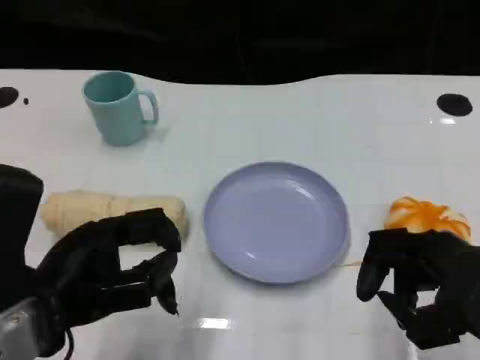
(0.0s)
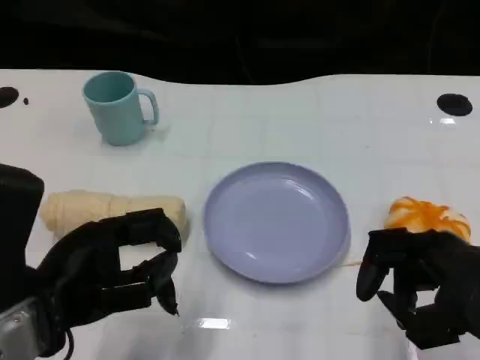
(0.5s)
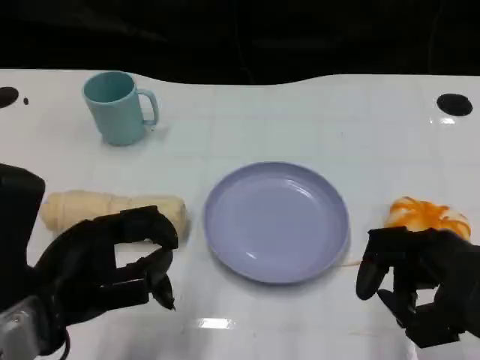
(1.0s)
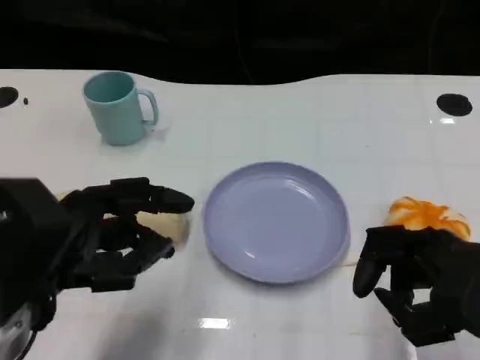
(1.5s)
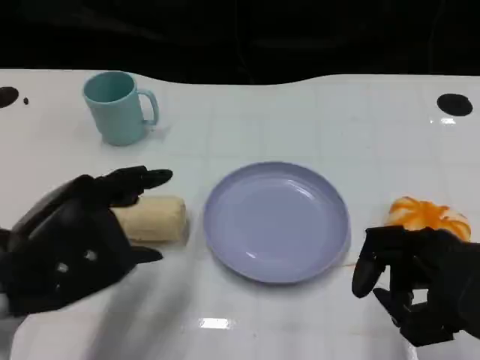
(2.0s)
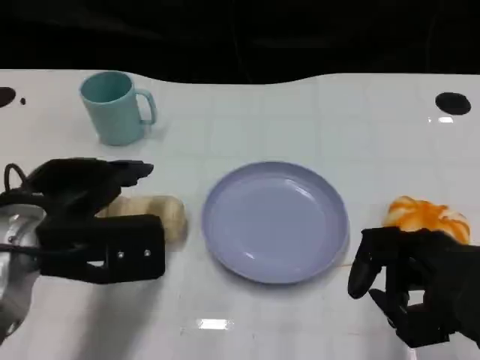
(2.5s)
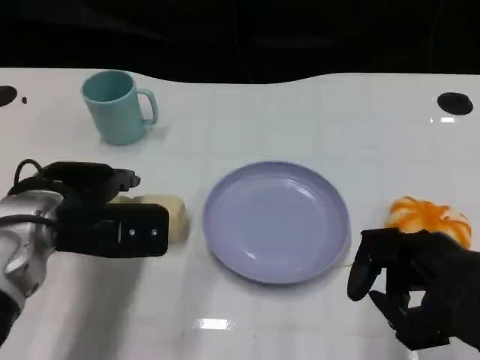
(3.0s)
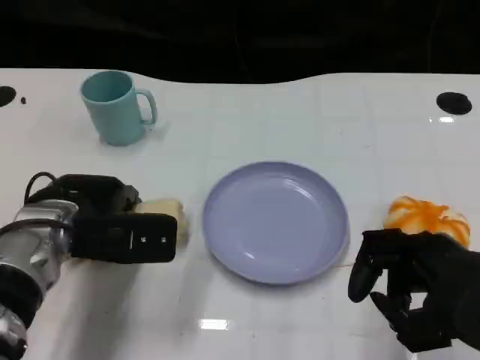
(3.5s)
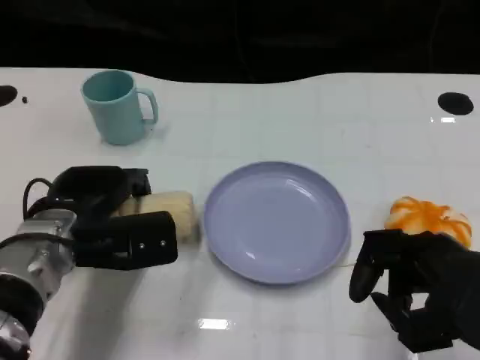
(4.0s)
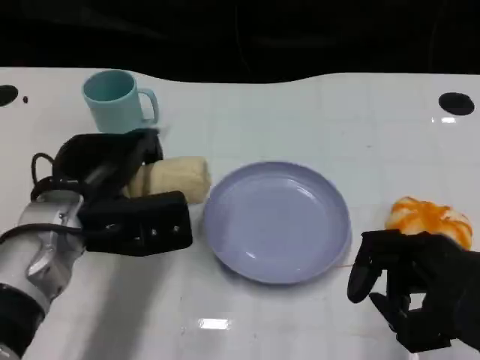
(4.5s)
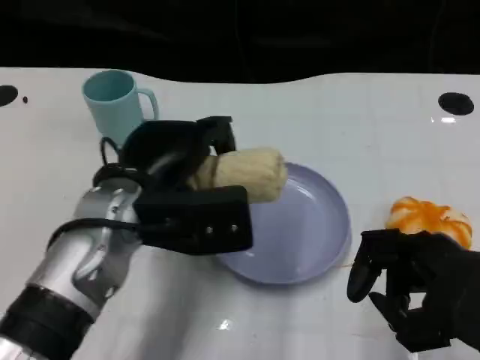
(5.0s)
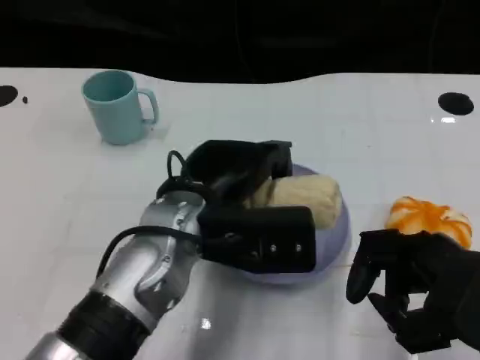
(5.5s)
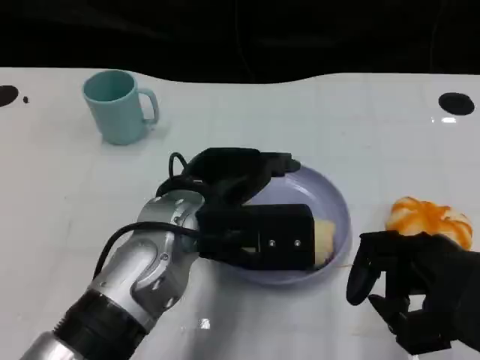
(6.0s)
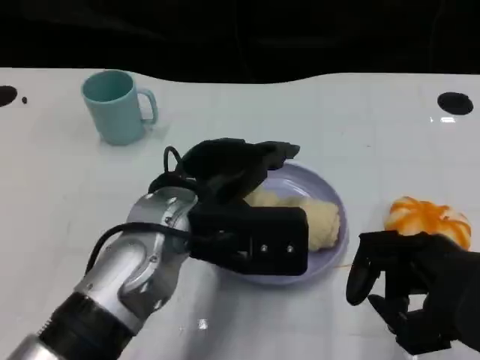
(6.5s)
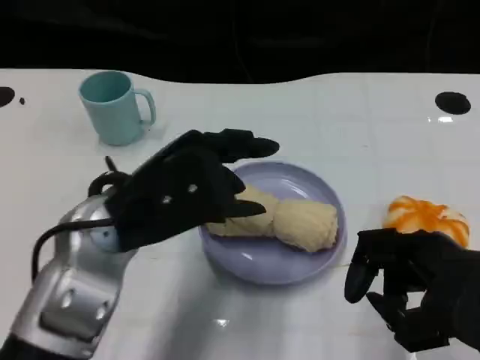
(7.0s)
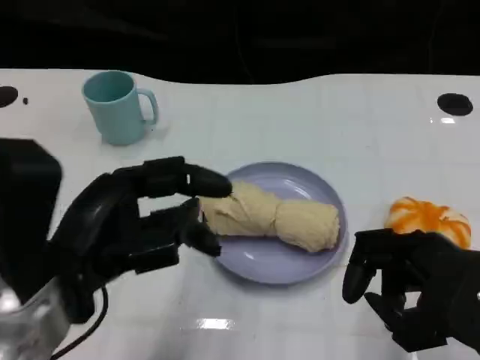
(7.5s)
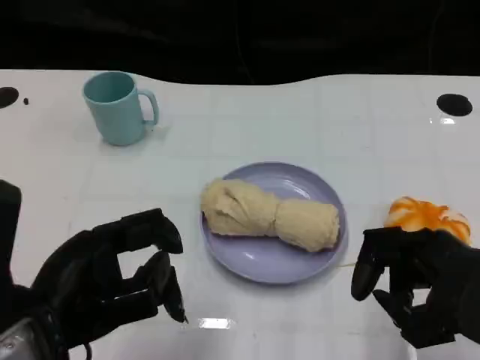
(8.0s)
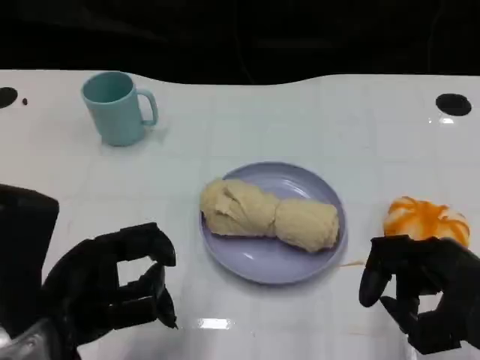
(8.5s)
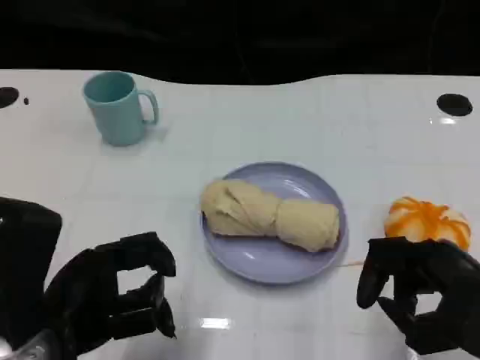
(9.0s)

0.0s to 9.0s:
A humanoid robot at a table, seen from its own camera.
Task of the whole recording: Grasp the towel on the left side of the plate with the left hand and place it into the plate.
2.0s to 4.5s: The left hand shifts some 10 cm forward.
4.5s to 7.0s: The left hand is displaced upward by some 5 cm, and reaches roughly 10 cm to the right, then returns.
7.0s to 9.0s: The left hand is displaced backward and to the left by approximately 10 cm.

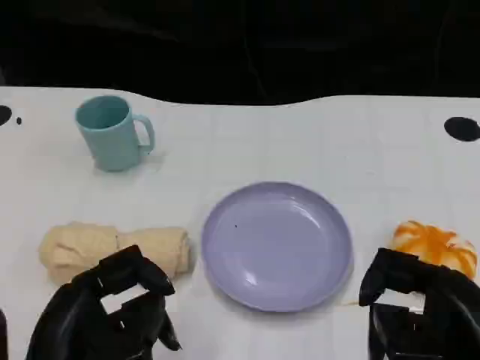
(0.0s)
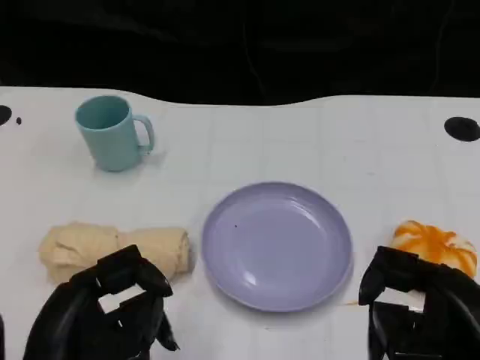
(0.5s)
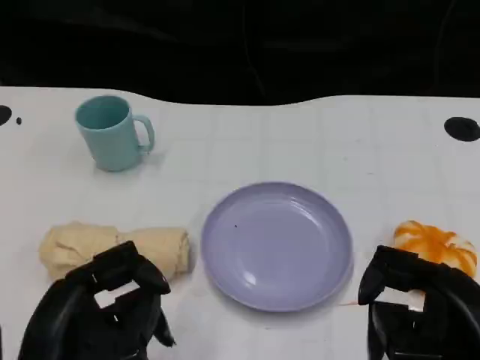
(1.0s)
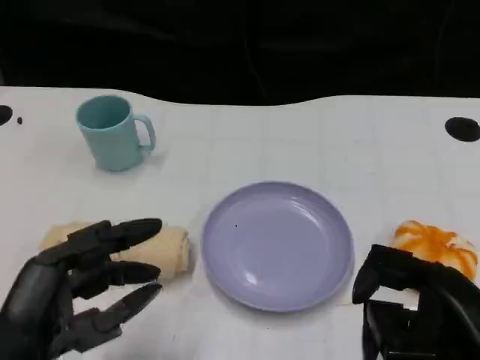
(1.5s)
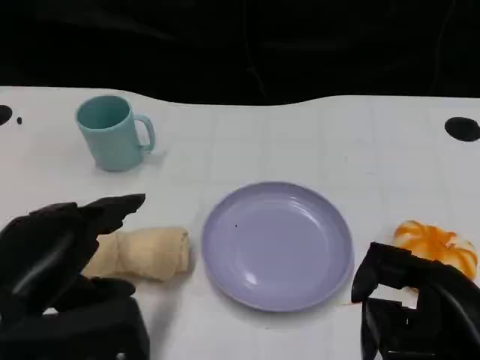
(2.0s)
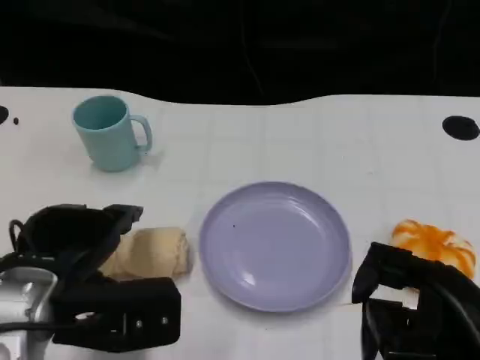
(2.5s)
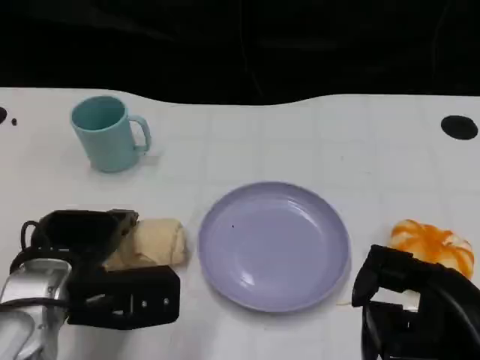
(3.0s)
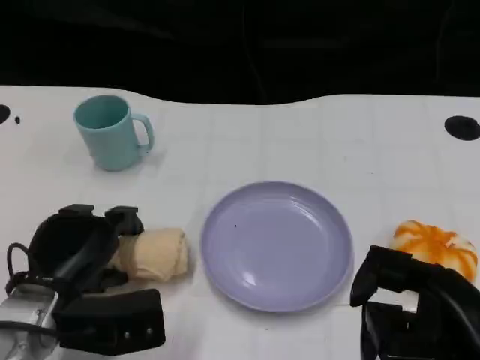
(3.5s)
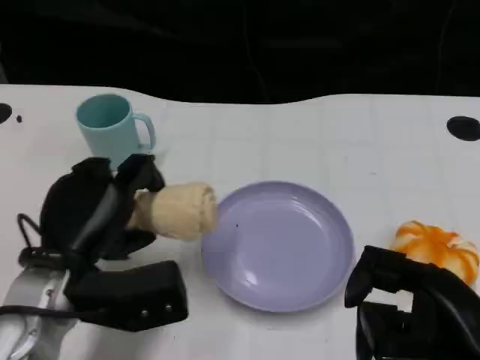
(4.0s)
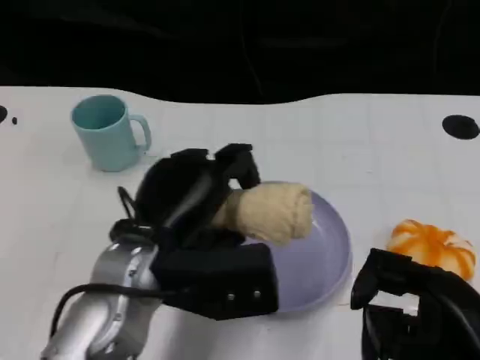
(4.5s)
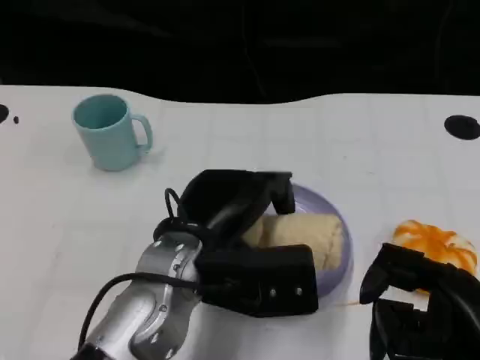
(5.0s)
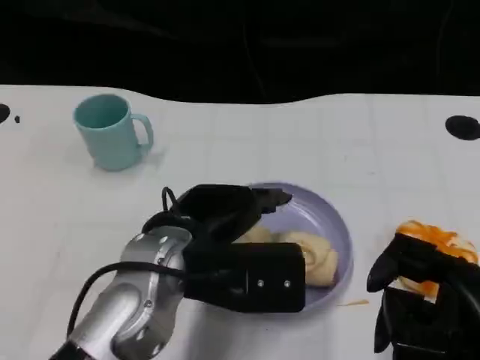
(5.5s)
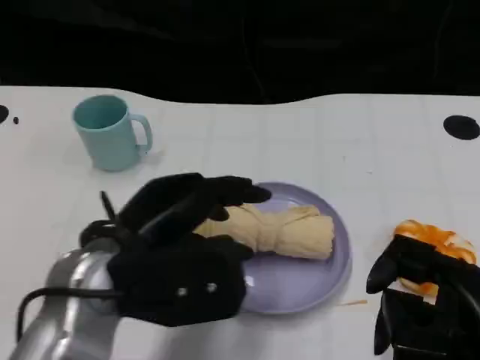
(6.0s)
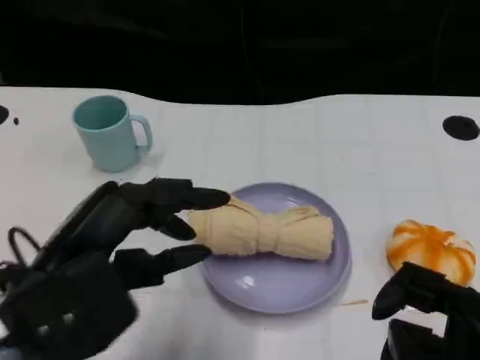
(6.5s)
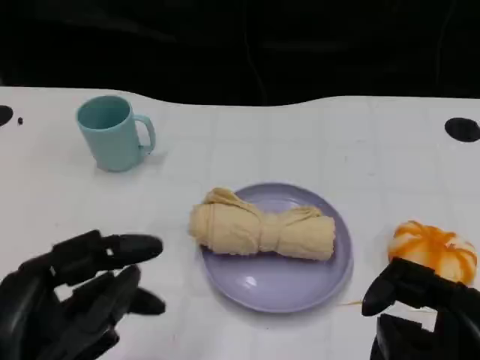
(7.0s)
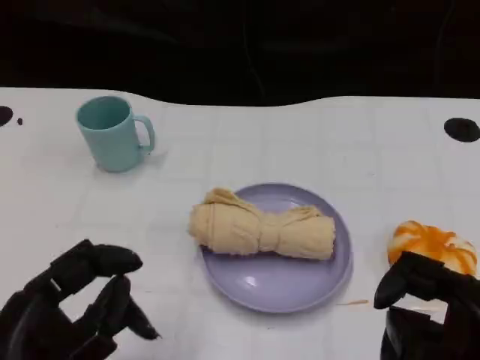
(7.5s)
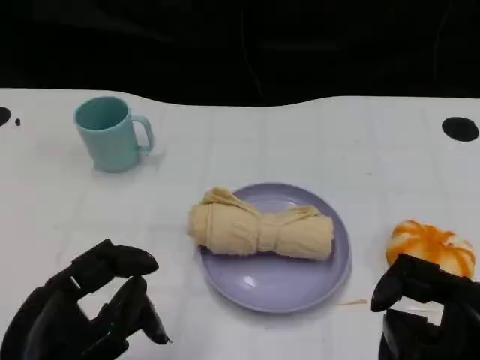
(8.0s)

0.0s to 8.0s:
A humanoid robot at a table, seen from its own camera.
Task of the whole recording: Grasp the towel on the left side of the plate with the left hand and place it into the plate.
0.0s to 2.0s: The left hand shifts by roughly 5 cm.
2.0s to 4.0s: The left hand goes some 10 cm forward and downward.
4.0s to 6.0s: The left hand heads upward, covering approximately 5 cm, and travels to the right and back again, approximately 10 cm each way.
6.0s to 8.0s: The left hand shifts approximately 10 cm backward and to the left.

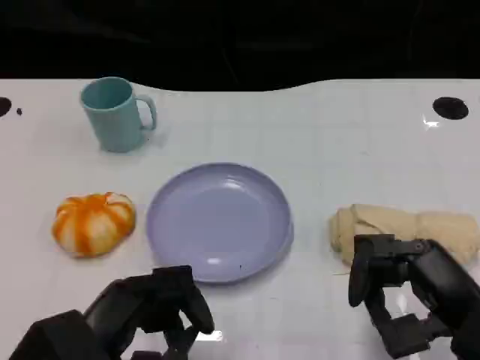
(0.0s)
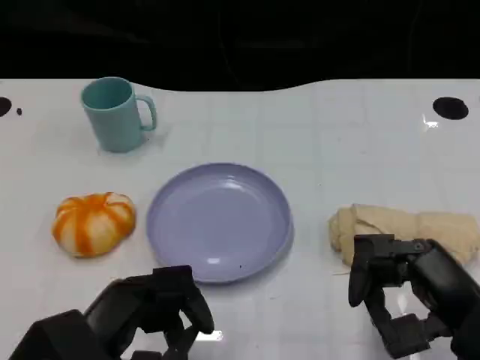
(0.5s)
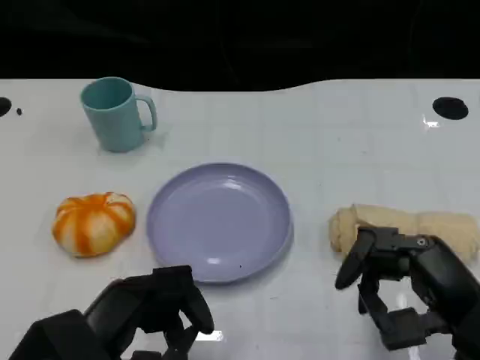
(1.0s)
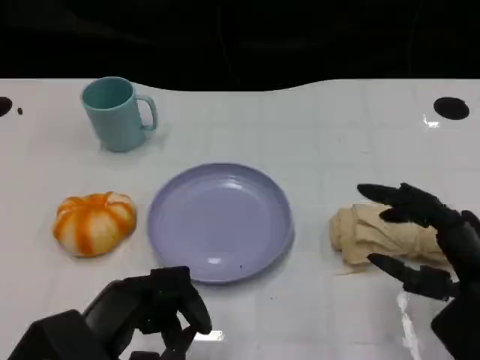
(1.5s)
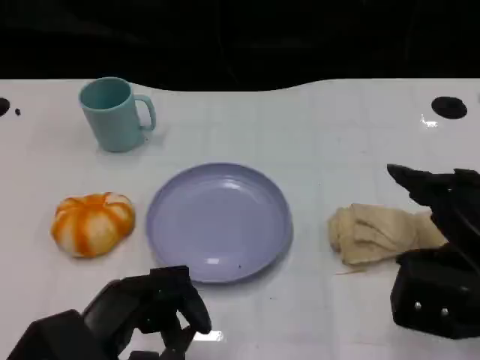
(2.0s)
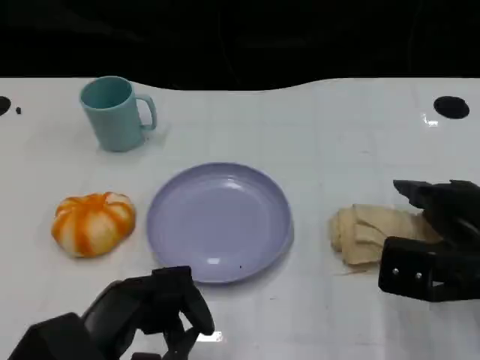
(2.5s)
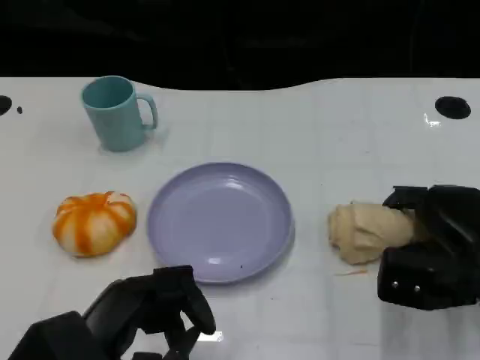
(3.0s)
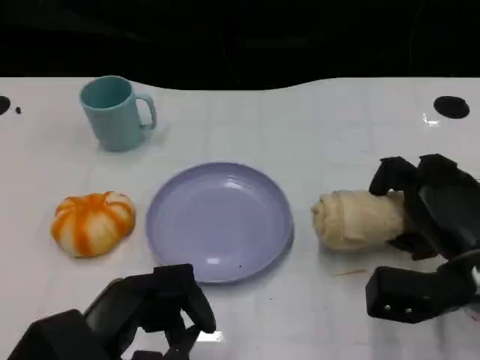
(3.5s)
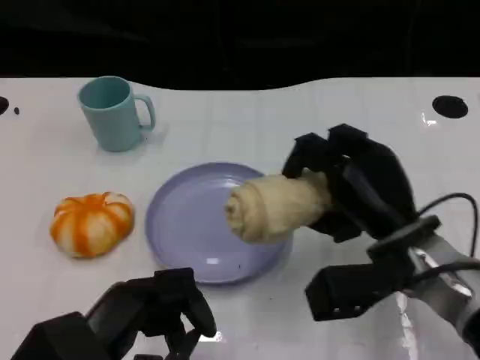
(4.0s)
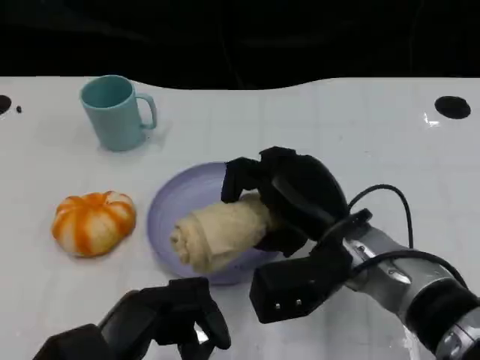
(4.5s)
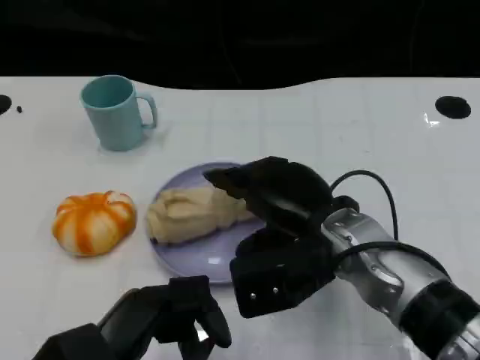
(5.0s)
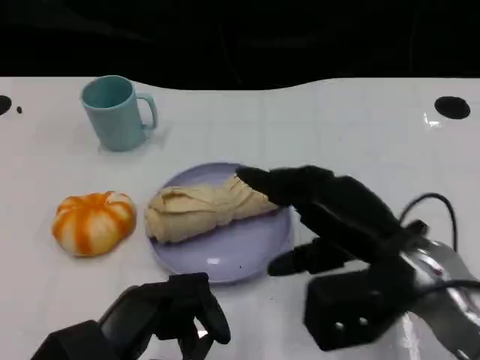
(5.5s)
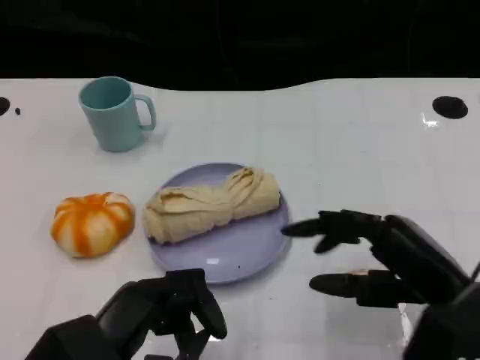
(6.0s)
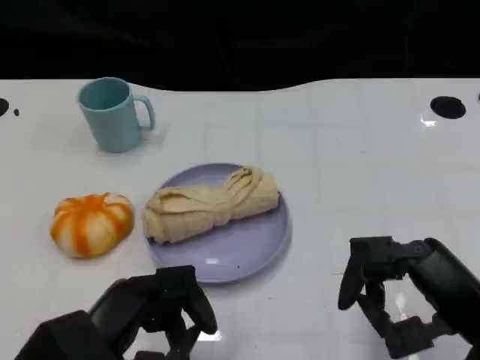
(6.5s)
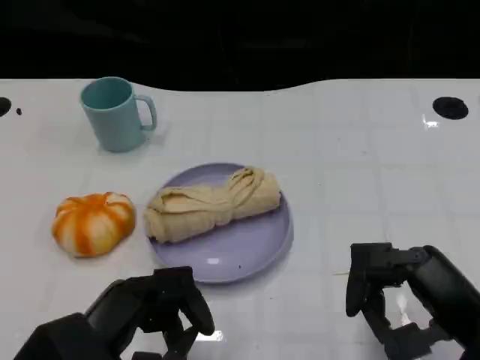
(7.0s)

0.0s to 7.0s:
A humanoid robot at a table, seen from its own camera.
Task of the whole recording: Grasp the towel on the left side of the plate with the left hand and place it into the plate.
0.0s to 2.0s: The right hand ends up roughly 5 cm from where it was.
2.0s to 3.5s: The right hand shifts approximately 5 cm downward.
3.5s to 5.0s: The right hand travels to the left and upward by about 15 cm.
5.0s to 7.0s: The right hand travels to the right and backward by roughly 15 cm.

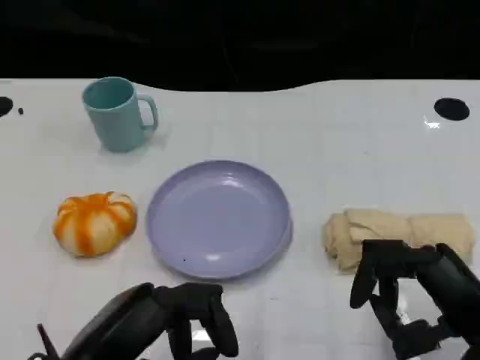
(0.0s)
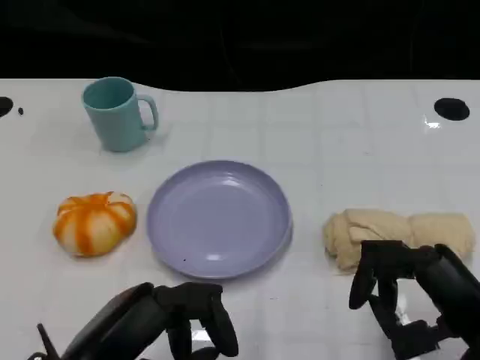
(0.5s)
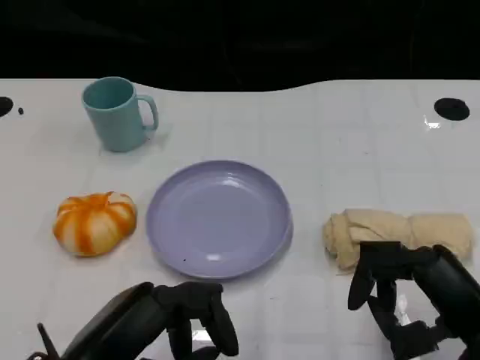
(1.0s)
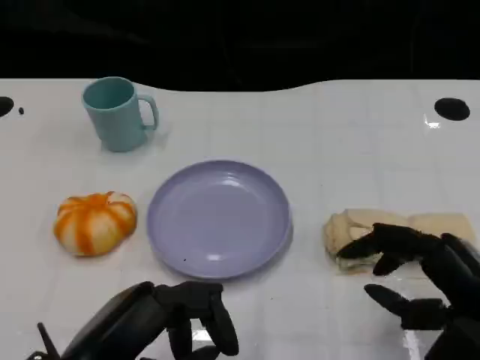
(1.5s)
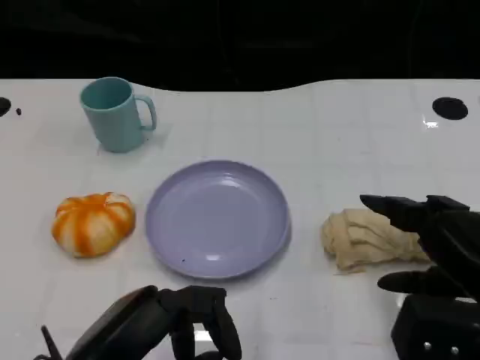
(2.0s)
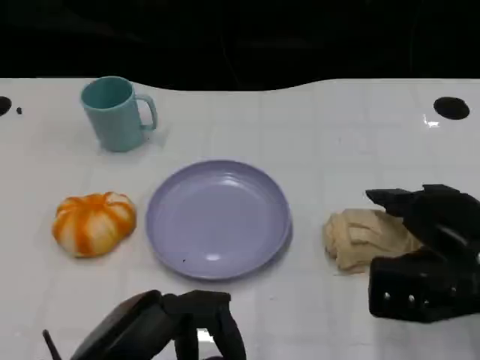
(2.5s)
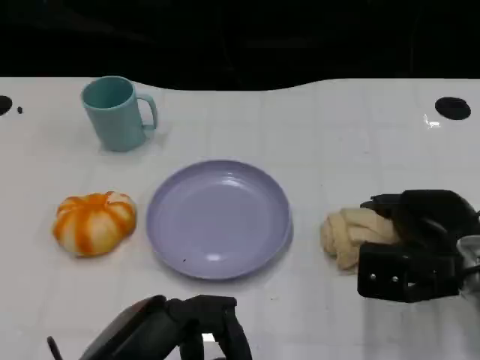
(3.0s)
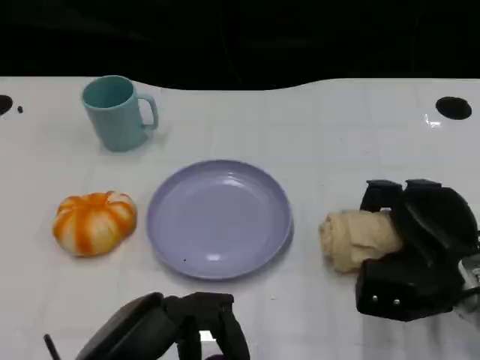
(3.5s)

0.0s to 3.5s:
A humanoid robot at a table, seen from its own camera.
Task of the whole recording: Grasp the towel on the left side of the plate with the left hand and place it into the plate.
2.0s to 3.5s: The right hand goes about 10 cm forward and downward.
